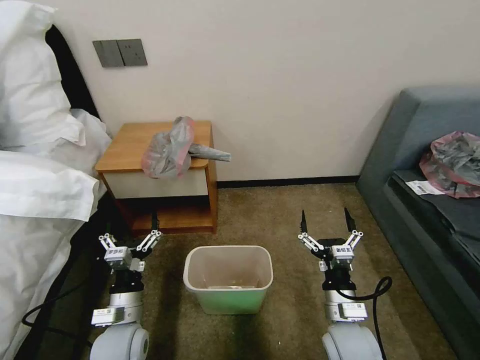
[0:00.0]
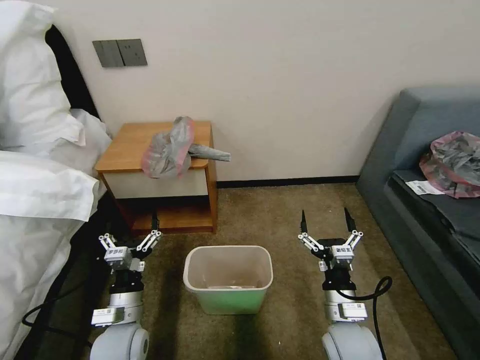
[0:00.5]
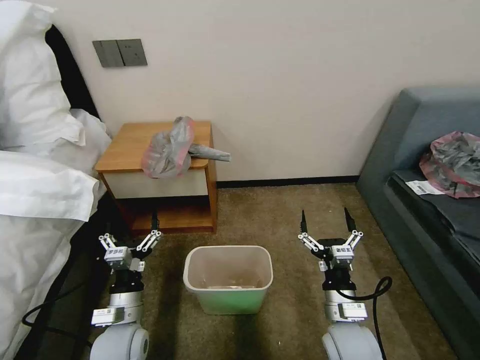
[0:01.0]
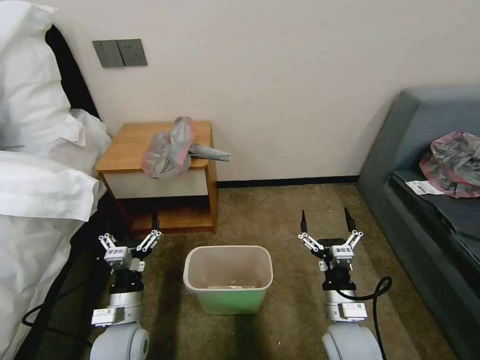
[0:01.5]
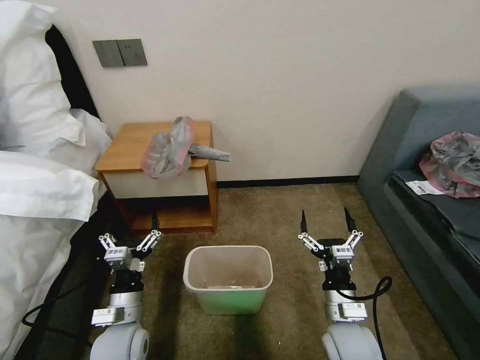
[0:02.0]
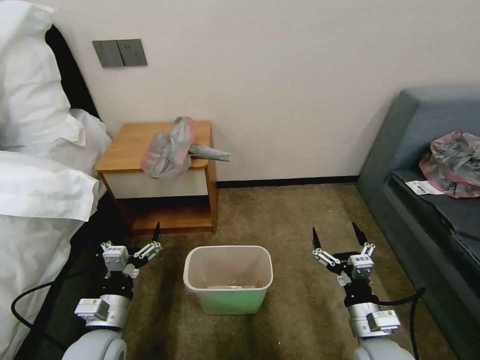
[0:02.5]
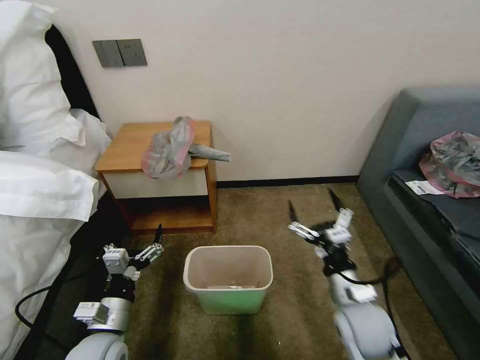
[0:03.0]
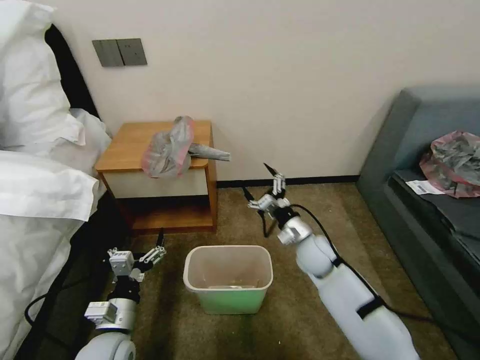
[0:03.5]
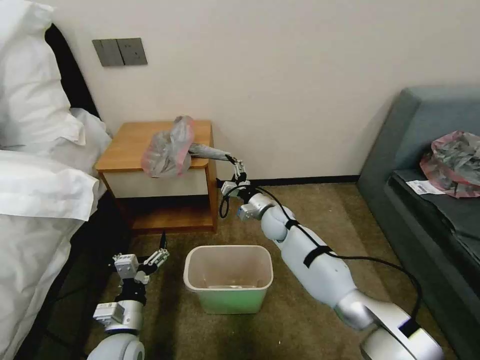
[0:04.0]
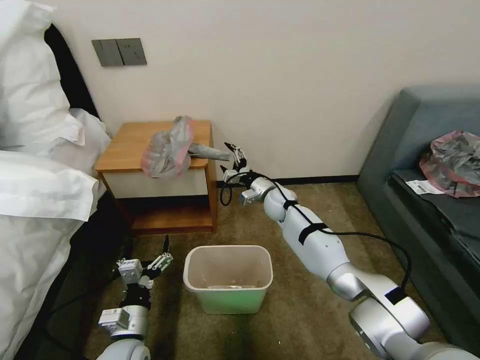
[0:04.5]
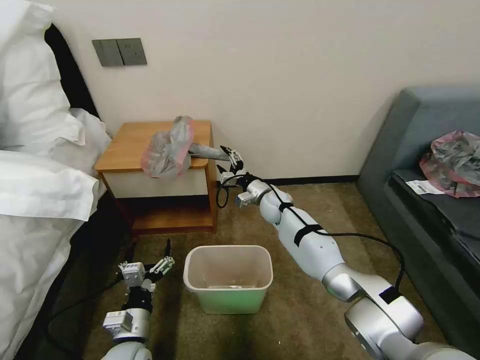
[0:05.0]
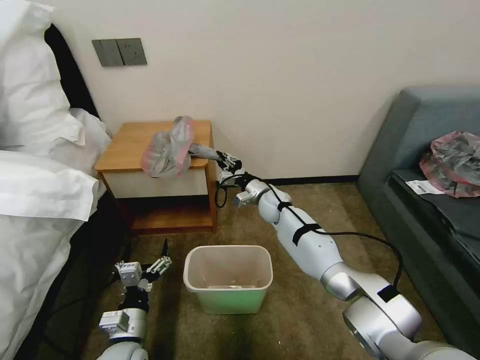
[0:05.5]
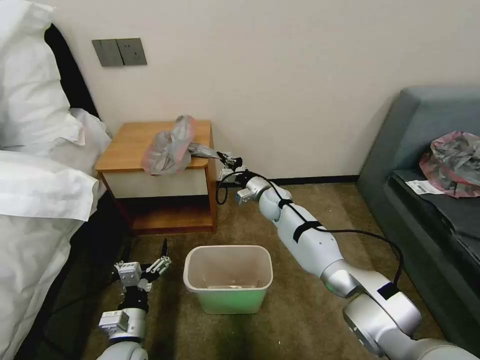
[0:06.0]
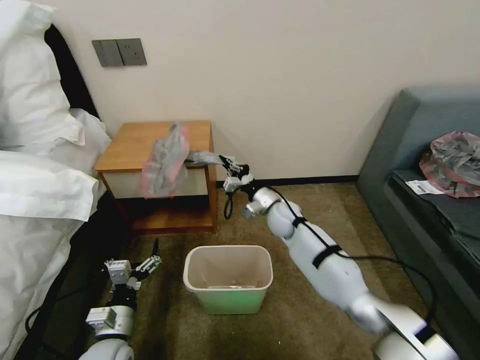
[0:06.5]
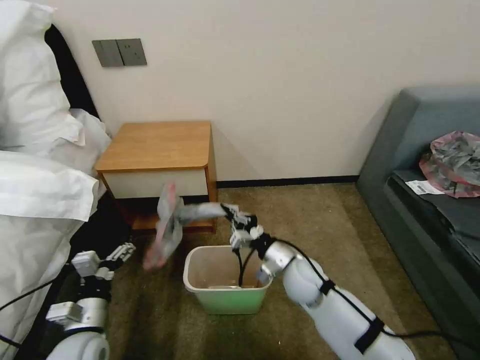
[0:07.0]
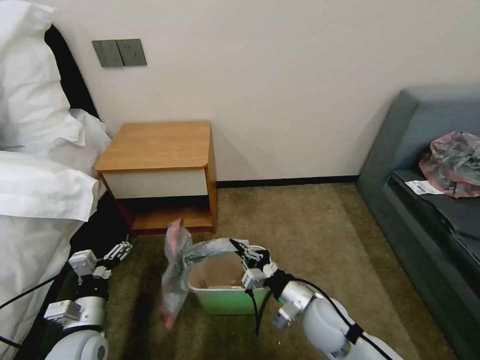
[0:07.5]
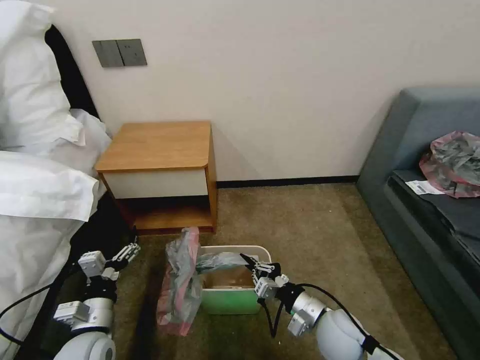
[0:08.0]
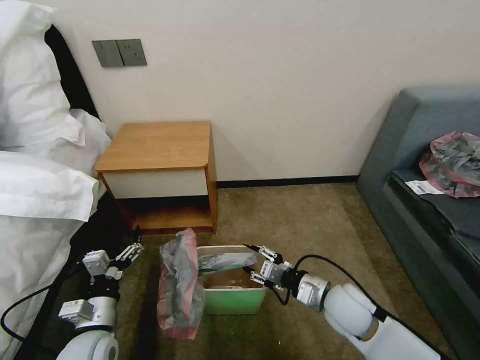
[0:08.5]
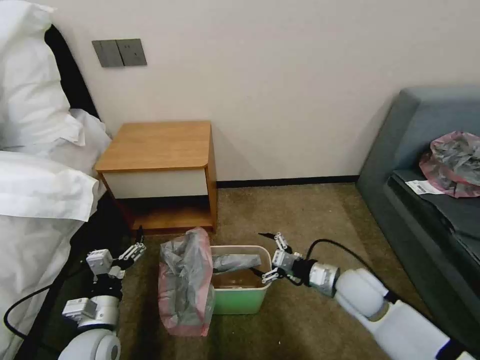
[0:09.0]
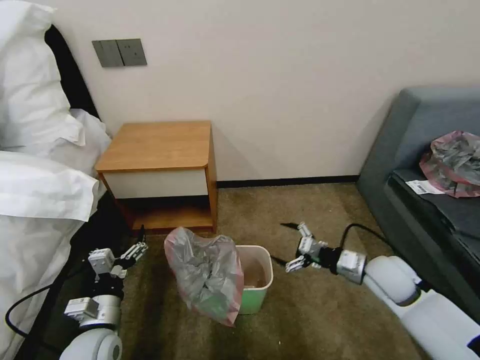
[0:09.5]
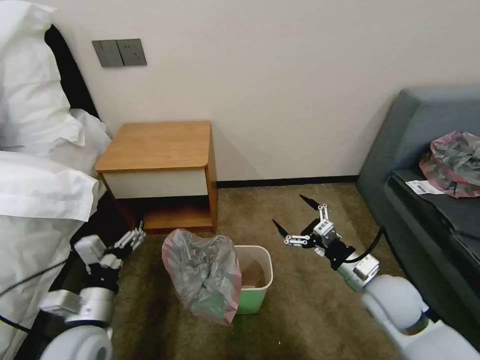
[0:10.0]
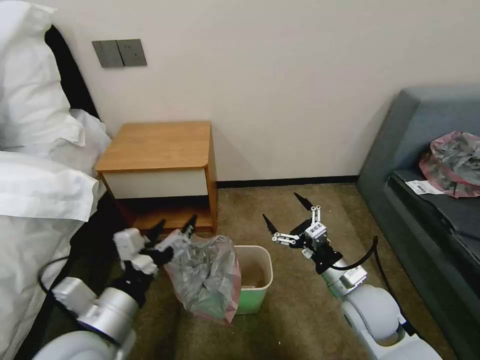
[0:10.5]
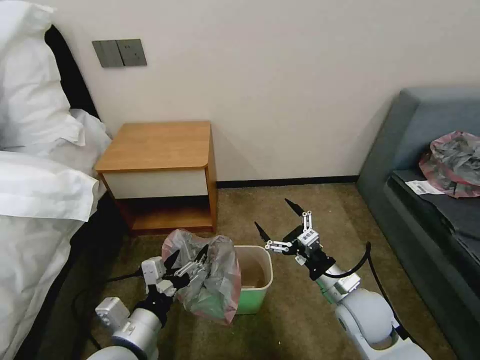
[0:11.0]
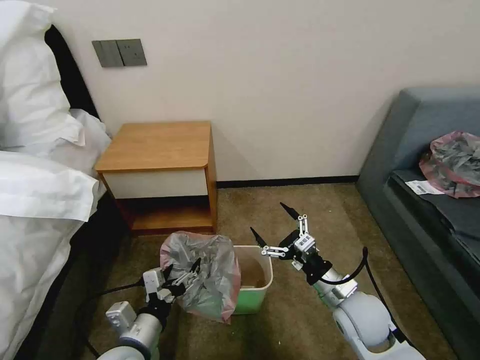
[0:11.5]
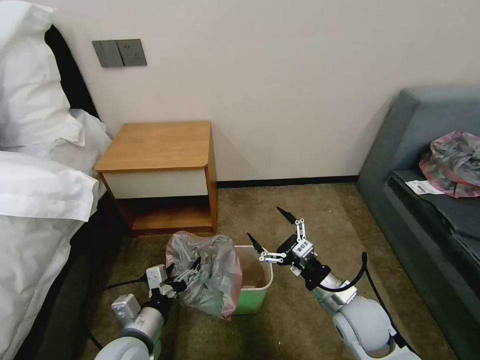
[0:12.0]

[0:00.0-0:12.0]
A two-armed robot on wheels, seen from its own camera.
Task of the whole recording: Pick up the garbage bag from the table and place it over the trash can.
0:02.0 to 0:04.0: The right gripper shifts about 30 cm forward.
0:04.0 to 0:06.0: The right gripper moves forward, some 5 cm, and closes.
0:06.0 to 0:08.0: The right gripper travels backward by about 35 cm; the left gripper moves to the left, about 5 cm.
0:08.0 to 0:10.0: The right gripper moves to the right and upward, approximately 15 cm, and opens its fingers, while the left gripper goes about 5 cm upward.
0:10.0 to 0:12.0: The left gripper travels to the right and downward by some 10 cm, while the right gripper heads to the left, covering approximately 5 cm.

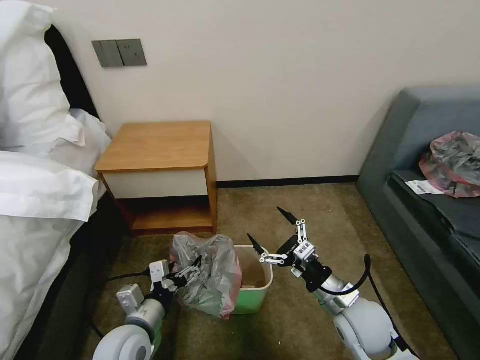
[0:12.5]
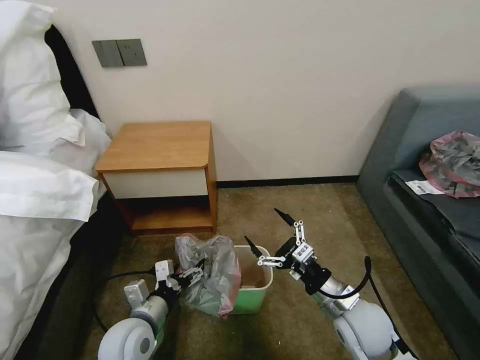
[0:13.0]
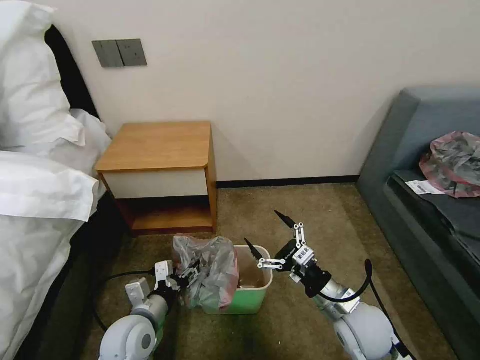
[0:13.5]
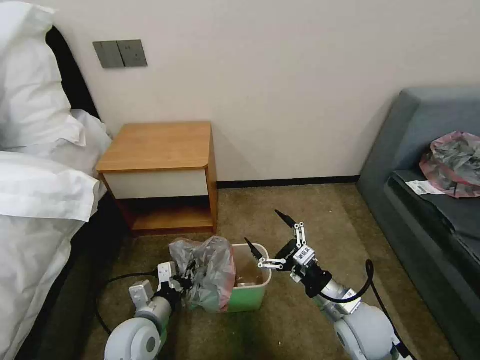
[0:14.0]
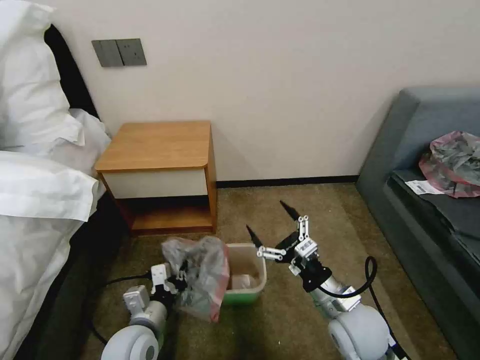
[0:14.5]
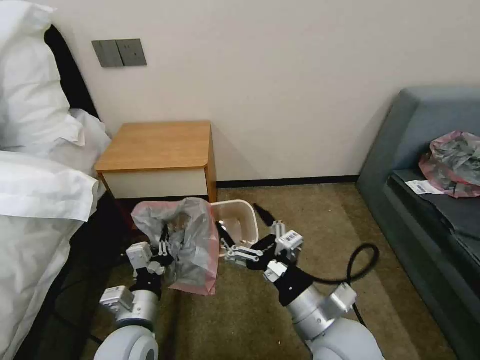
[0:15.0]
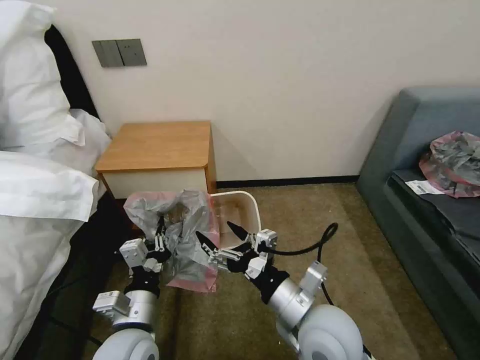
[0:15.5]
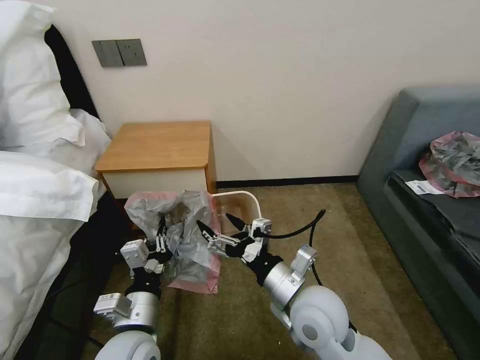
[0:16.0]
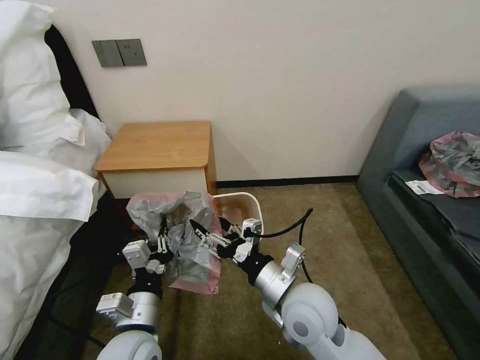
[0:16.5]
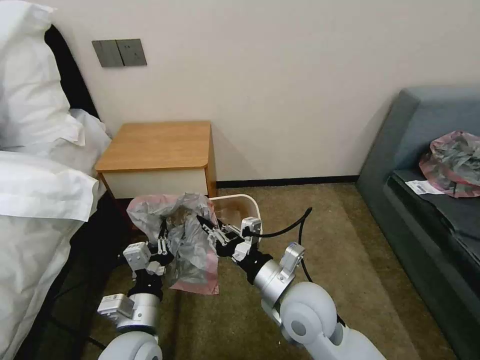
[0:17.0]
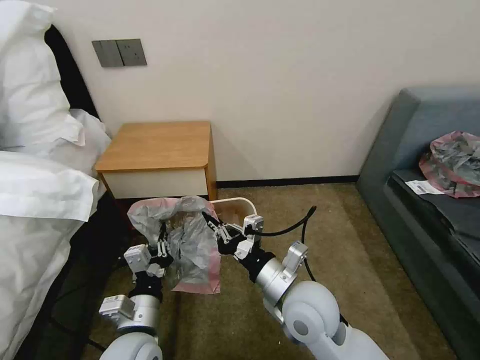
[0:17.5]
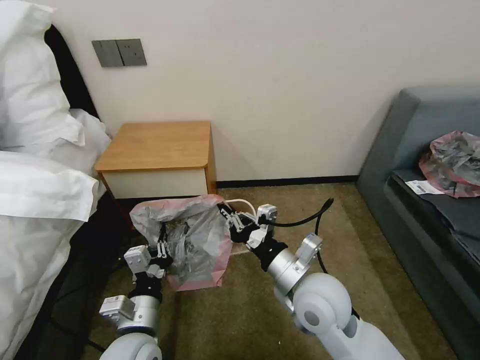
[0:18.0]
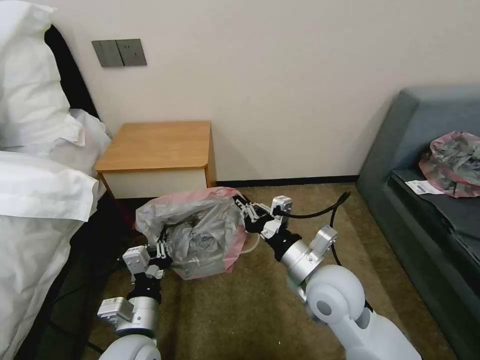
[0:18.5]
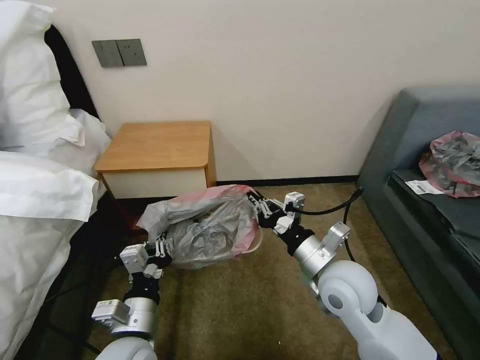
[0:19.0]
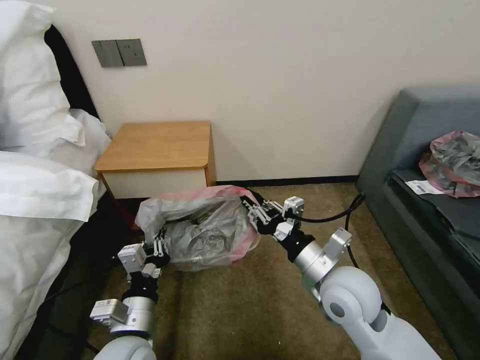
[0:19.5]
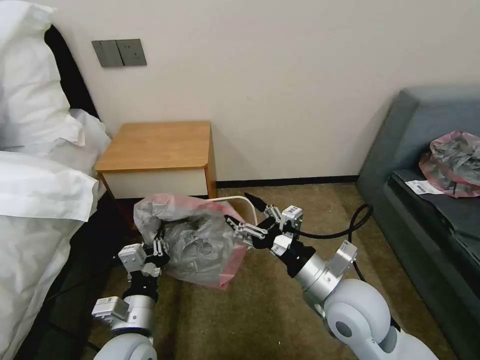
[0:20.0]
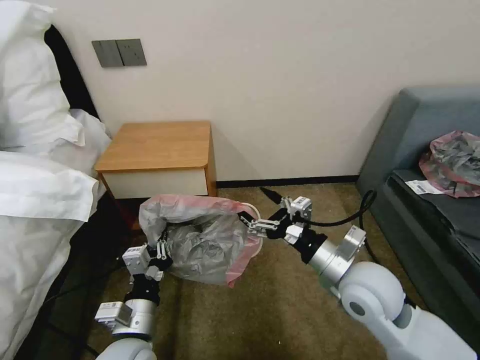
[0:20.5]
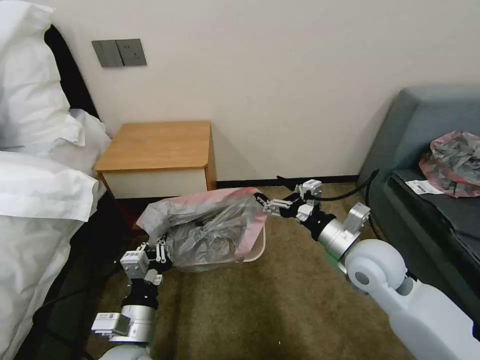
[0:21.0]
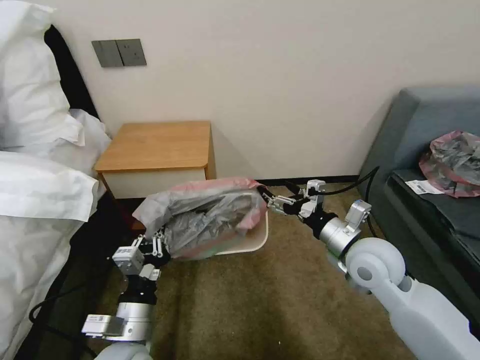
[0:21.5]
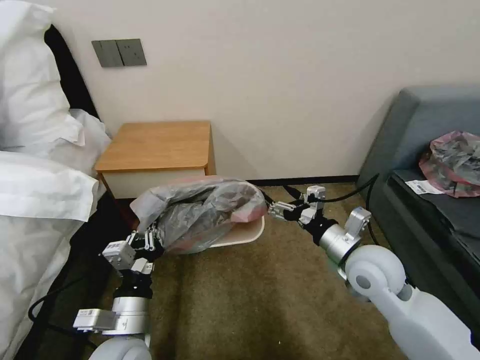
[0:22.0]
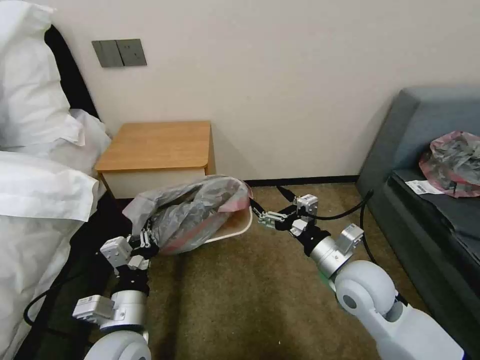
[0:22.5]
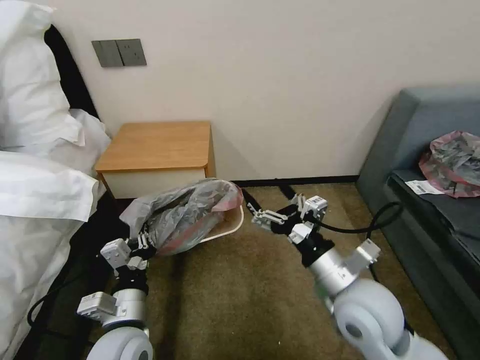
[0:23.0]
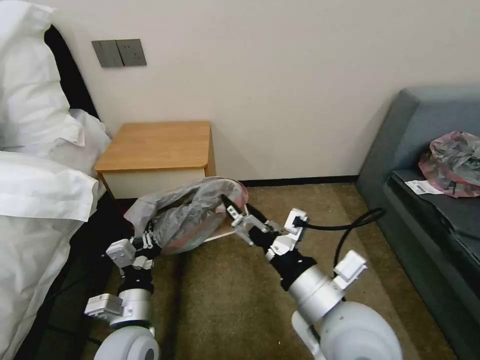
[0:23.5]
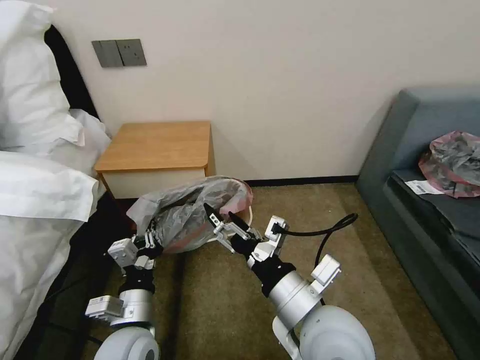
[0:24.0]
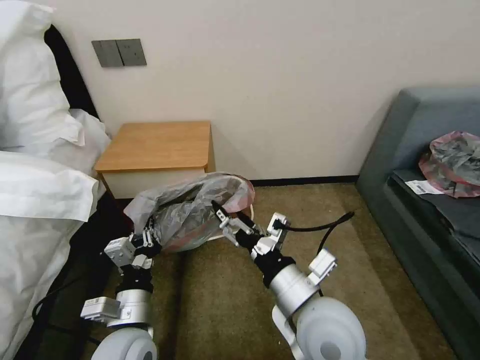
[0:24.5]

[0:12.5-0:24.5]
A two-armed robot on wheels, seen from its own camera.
Task of the whole recording: Pick up the garbage bag from the table and place it over the trash can.
0:12.5 to 0:14.5: The left gripper closes its fingers.
0:14.5 to 0:16.5: The right gripper shifts roughly 10 cm to the left and upward, while the left gripper is displaced upward by approximately 5 cm.
0:16.5 to 0:18.5: The right gripper changes place by some 5 cm, and closes up.
0:18.5 to 0:20.5: The right gripper goes approximately 5 cm to the right, and opens up.
0:20.5 to 0:22.5: The grippers make only small movements.
0:22.5 to 0:24.5: The right gripper is displaced to the left and backward by roughly 10 cm.

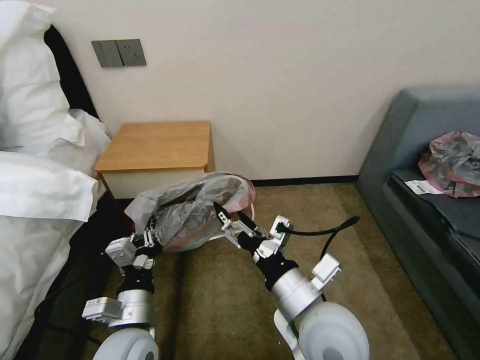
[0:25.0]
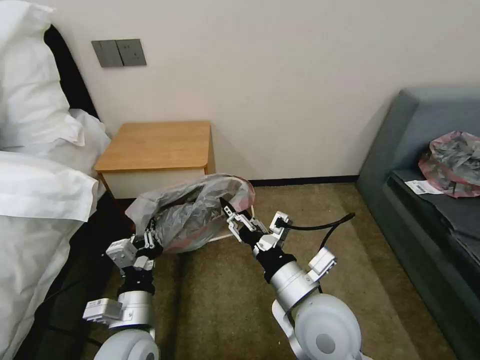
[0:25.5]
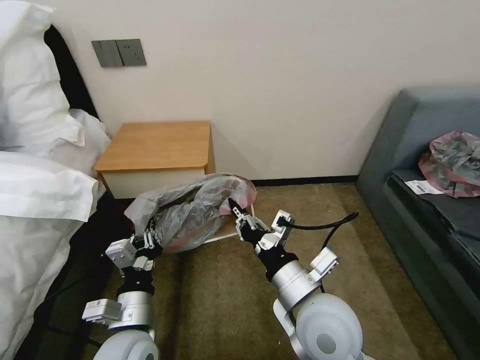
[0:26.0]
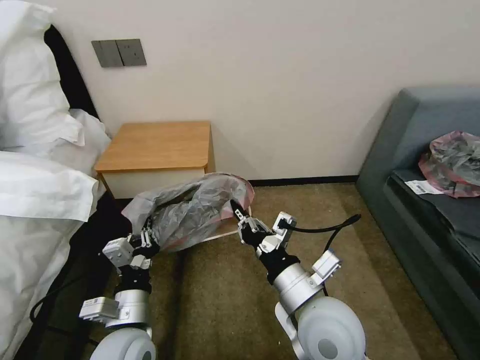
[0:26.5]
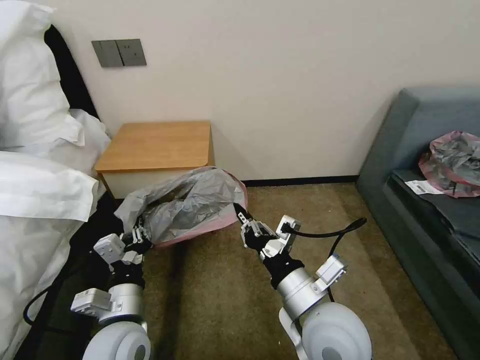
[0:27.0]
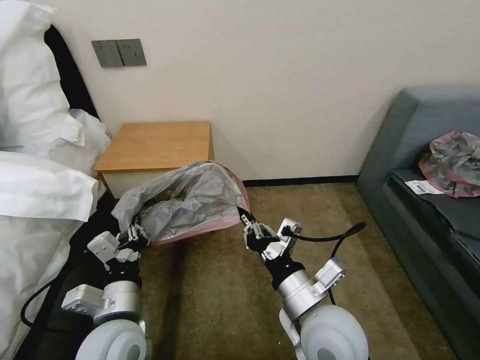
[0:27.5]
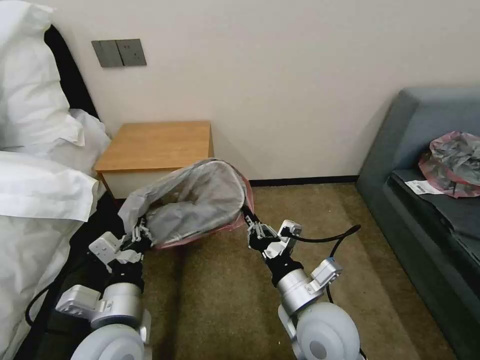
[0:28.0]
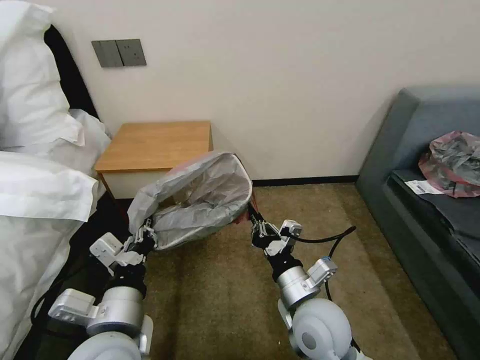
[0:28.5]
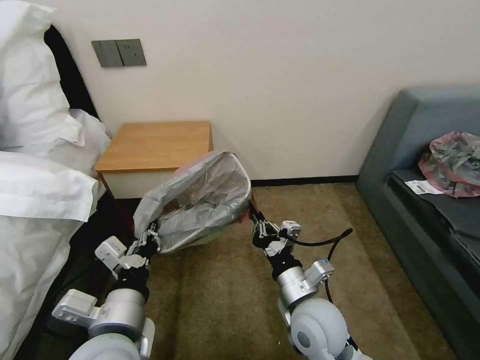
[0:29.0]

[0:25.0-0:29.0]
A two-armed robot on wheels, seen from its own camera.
Task of the whole recording: Pick up the garbage bag from the table and place it over the trash can.
0:25.0 to 0:27.0: The right gripper closes its fingers.
0:27.0 to 0:29.0: The right gripper heads downward, covering about 5 cm, while the left gripper moves upward, some 5 cm.
